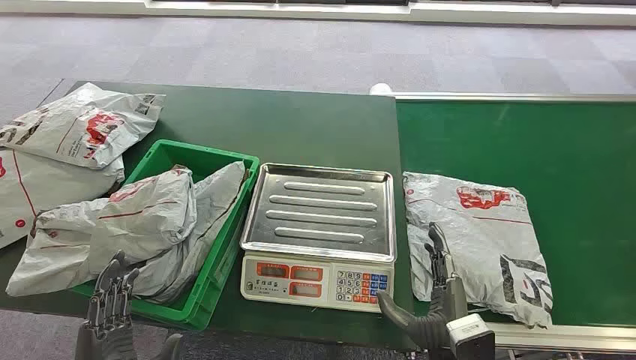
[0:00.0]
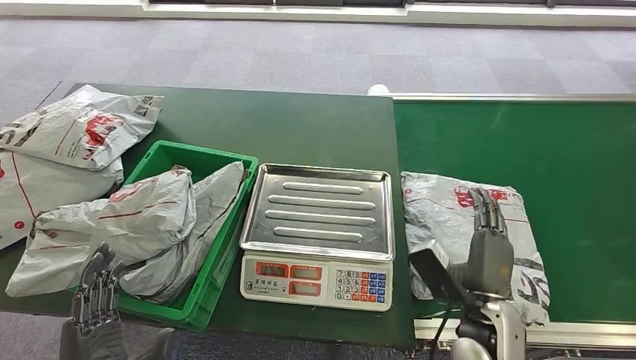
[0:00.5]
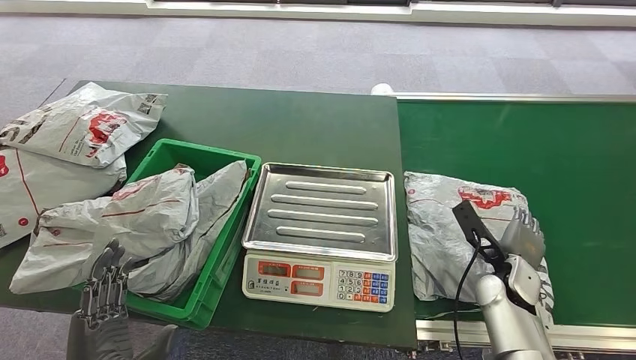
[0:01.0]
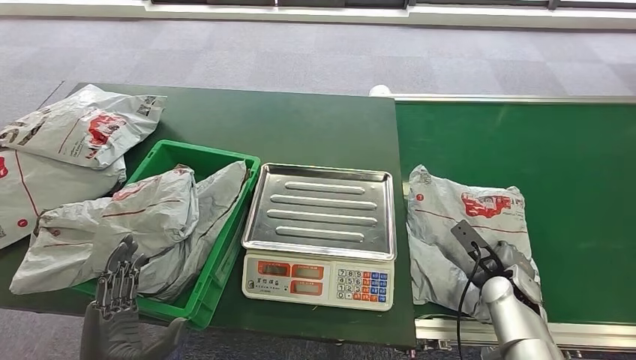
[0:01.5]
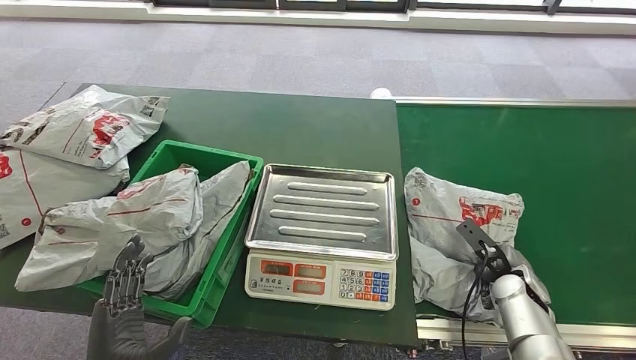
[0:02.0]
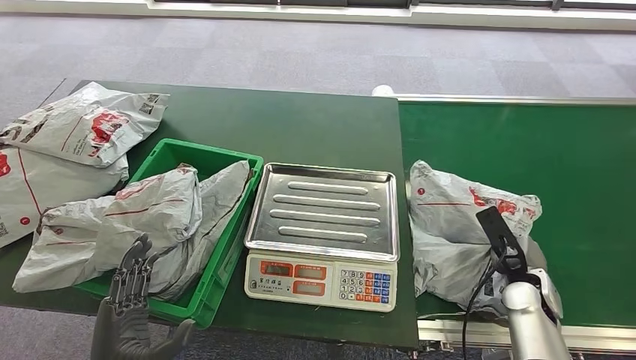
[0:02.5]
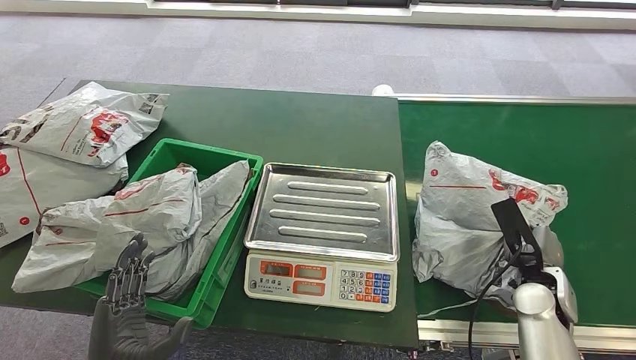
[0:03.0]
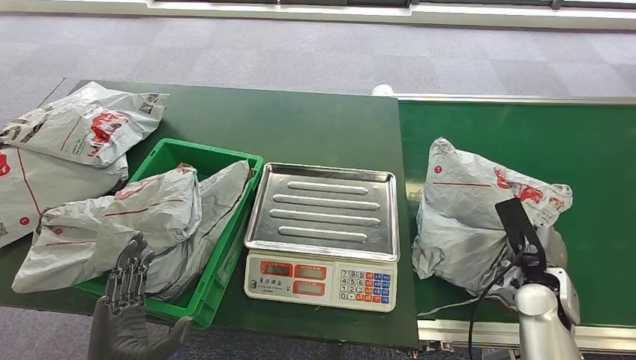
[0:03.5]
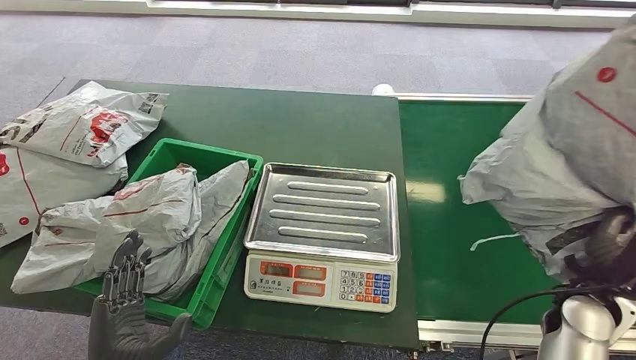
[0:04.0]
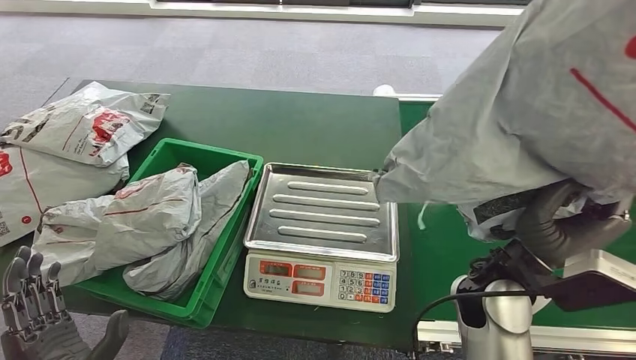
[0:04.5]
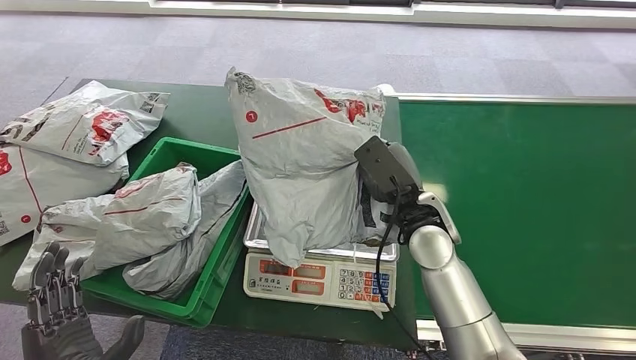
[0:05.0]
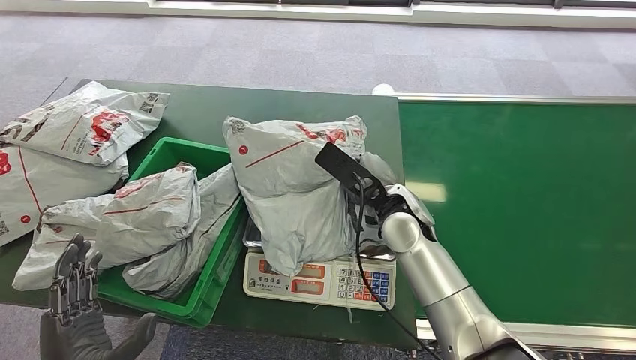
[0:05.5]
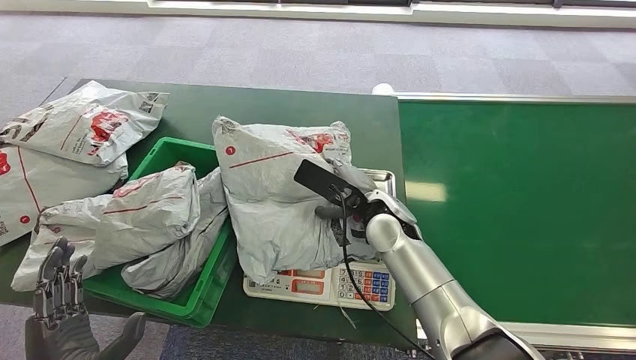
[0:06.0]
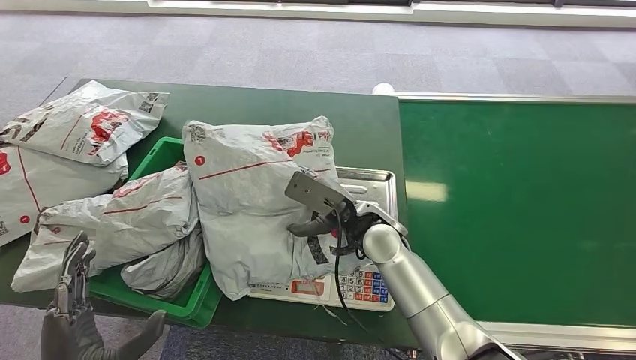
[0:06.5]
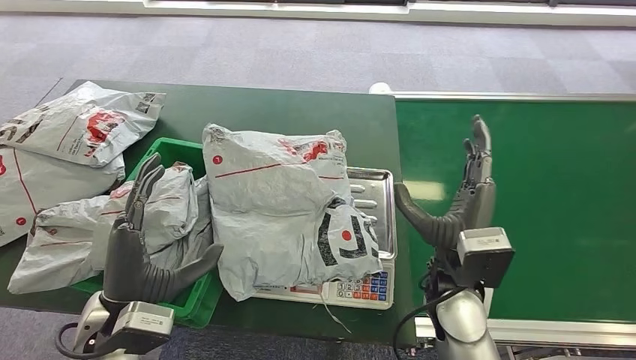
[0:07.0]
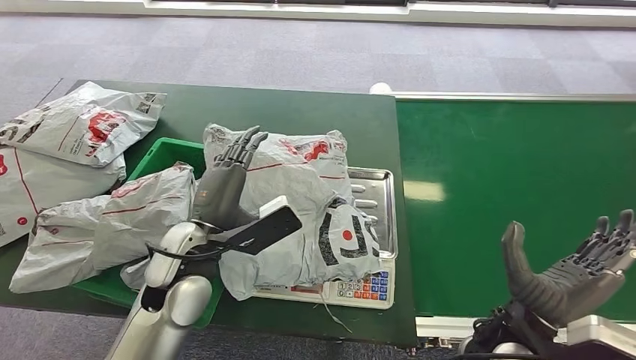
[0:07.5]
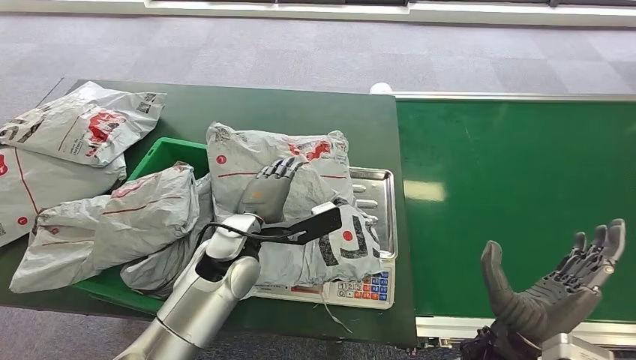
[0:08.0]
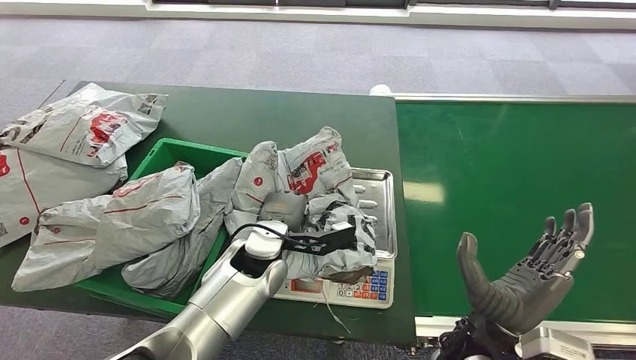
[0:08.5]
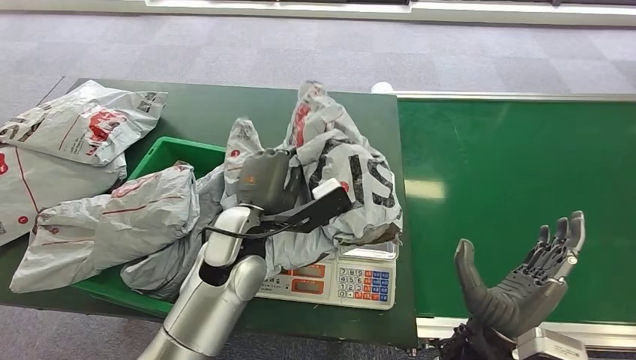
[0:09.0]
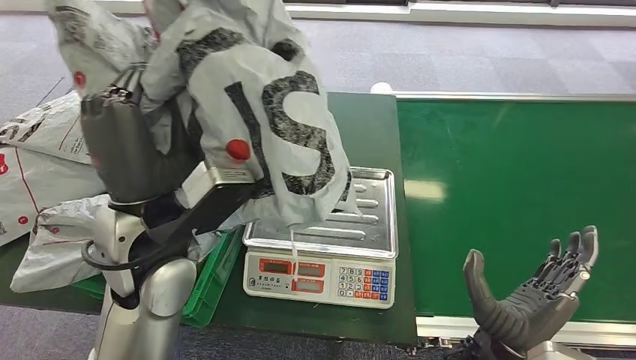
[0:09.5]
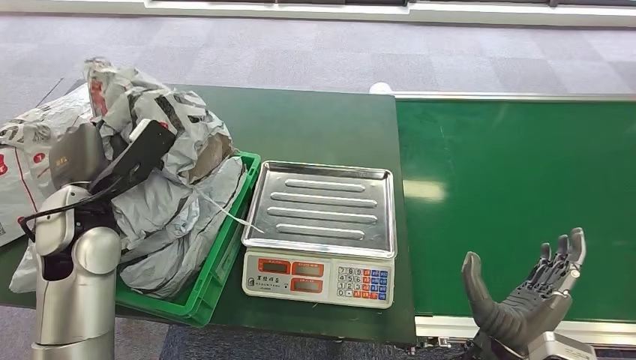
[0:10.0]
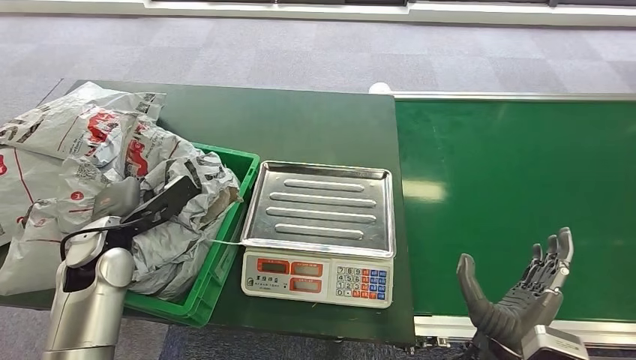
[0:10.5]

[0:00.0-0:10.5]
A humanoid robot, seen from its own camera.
Step, 0:00.0 to 0:04.5: Pick up the package from the conveyor belt.
Step, 0:05.0 to 0:07.0: Place the package onto the inbound machine.
Step, 0:07.5 to 0:09.5: Pick up the package from the inbound machine.
Step, 0:10.0 to 0:10.5: Place the package into the parcel locker.
